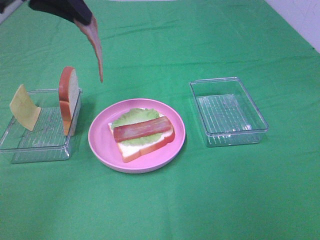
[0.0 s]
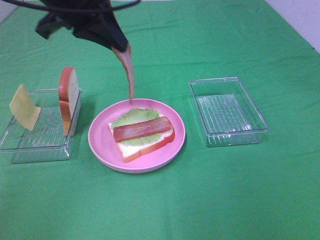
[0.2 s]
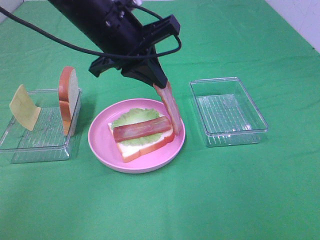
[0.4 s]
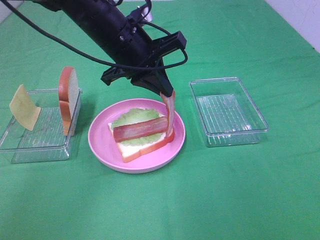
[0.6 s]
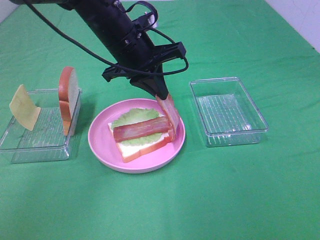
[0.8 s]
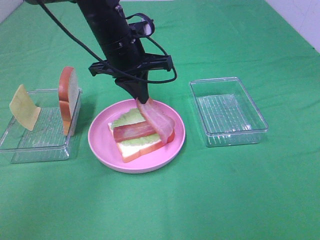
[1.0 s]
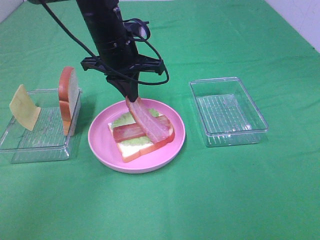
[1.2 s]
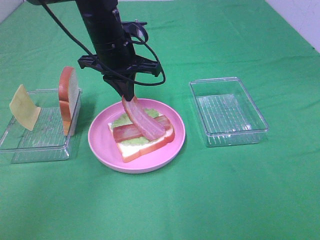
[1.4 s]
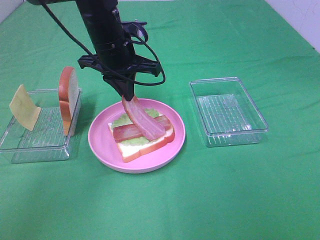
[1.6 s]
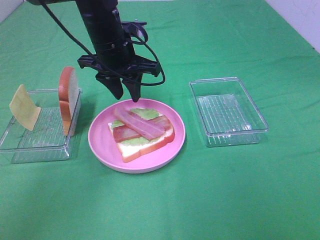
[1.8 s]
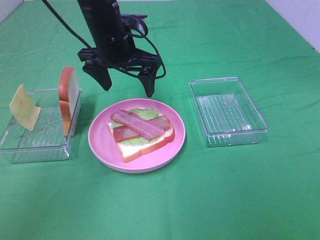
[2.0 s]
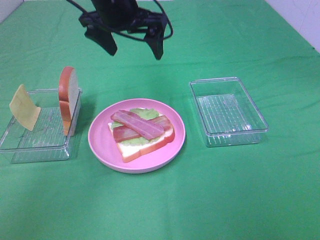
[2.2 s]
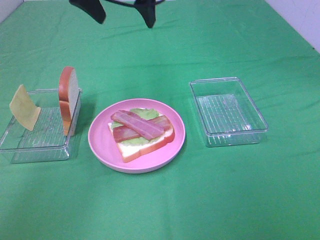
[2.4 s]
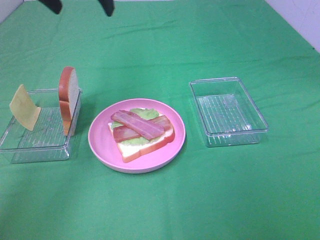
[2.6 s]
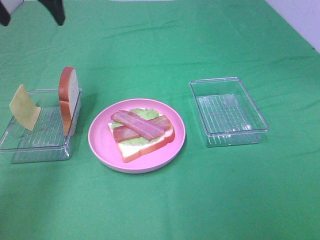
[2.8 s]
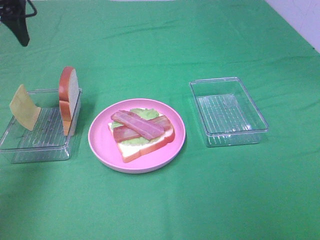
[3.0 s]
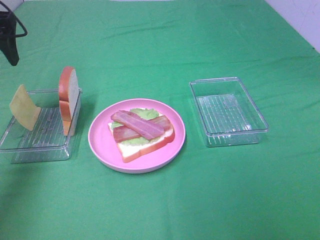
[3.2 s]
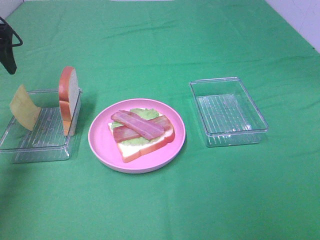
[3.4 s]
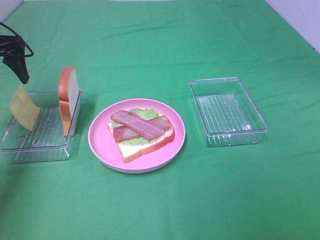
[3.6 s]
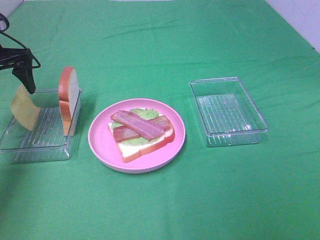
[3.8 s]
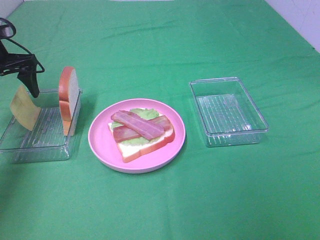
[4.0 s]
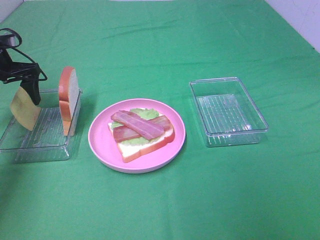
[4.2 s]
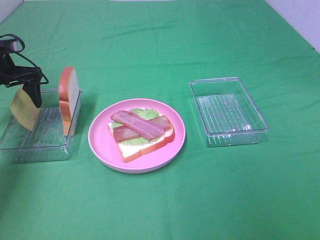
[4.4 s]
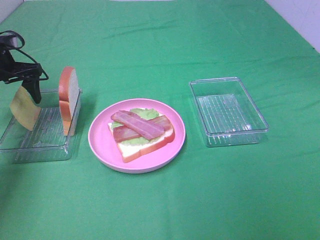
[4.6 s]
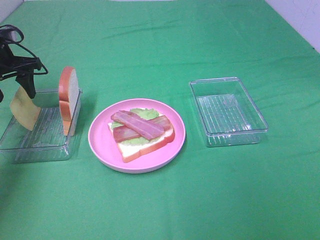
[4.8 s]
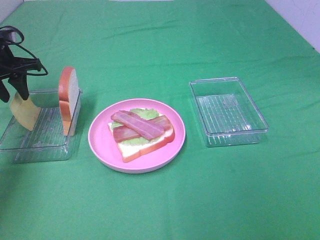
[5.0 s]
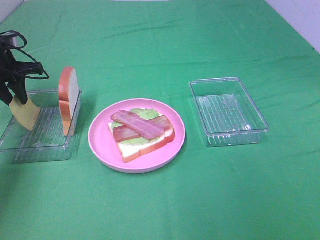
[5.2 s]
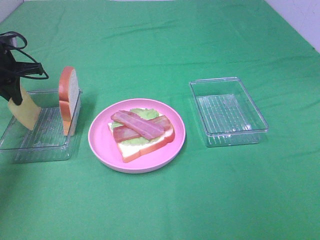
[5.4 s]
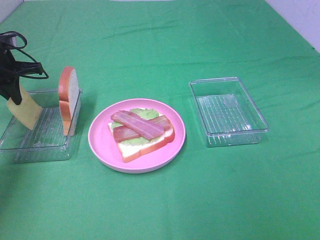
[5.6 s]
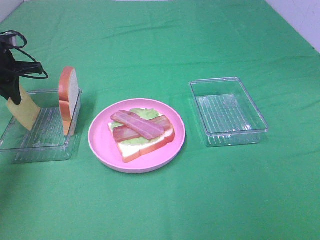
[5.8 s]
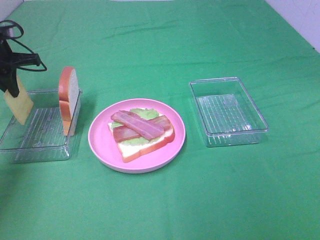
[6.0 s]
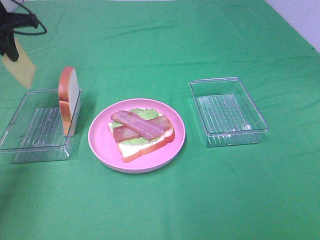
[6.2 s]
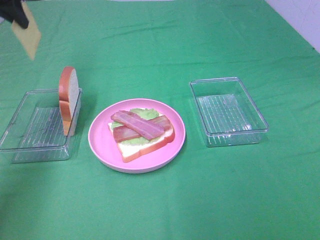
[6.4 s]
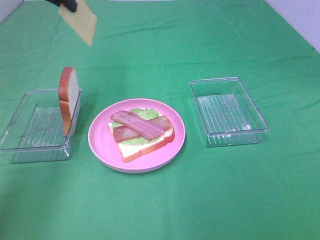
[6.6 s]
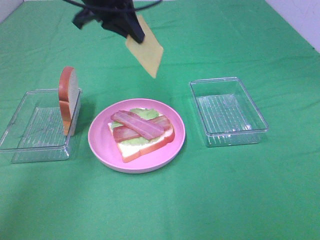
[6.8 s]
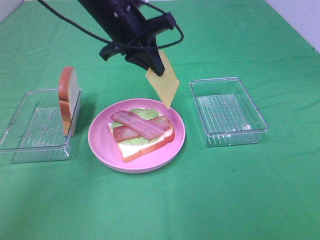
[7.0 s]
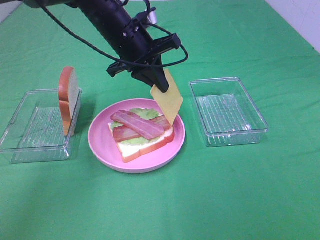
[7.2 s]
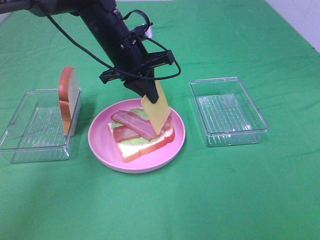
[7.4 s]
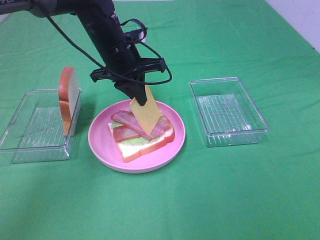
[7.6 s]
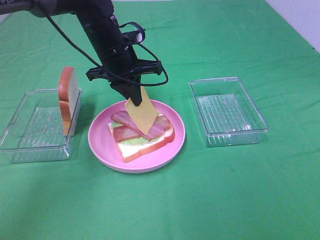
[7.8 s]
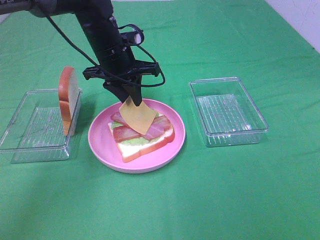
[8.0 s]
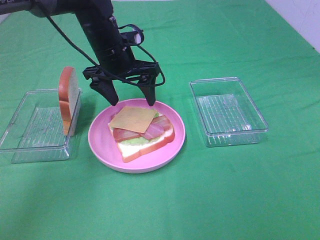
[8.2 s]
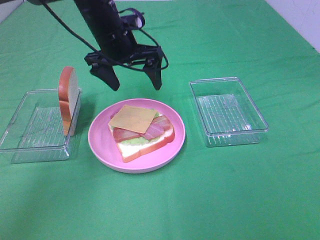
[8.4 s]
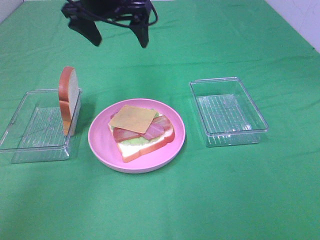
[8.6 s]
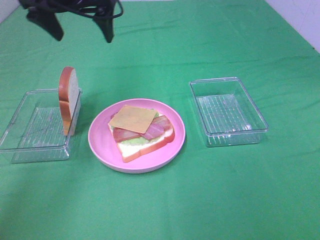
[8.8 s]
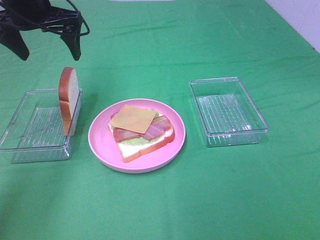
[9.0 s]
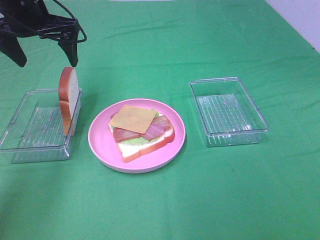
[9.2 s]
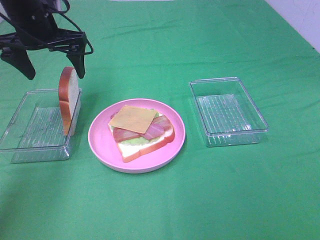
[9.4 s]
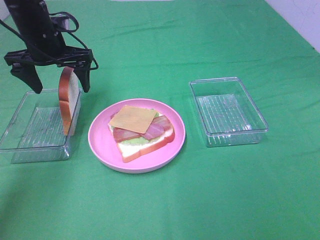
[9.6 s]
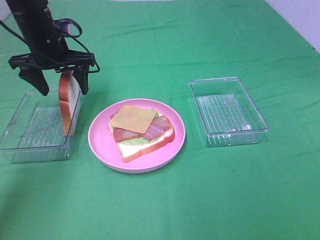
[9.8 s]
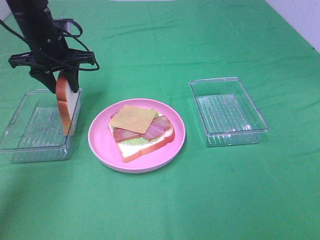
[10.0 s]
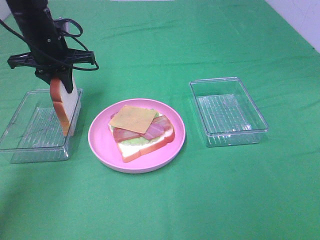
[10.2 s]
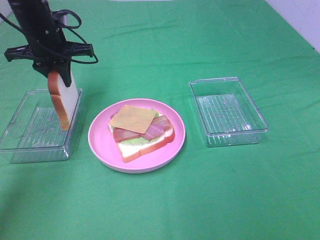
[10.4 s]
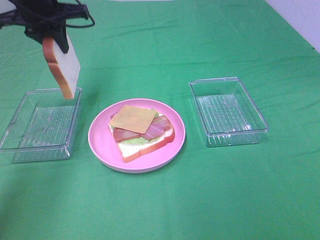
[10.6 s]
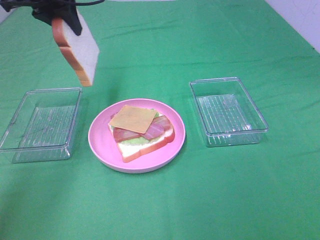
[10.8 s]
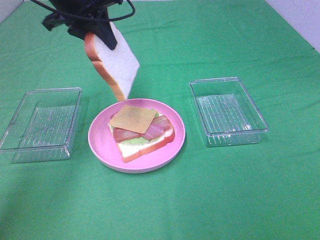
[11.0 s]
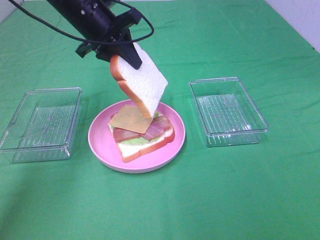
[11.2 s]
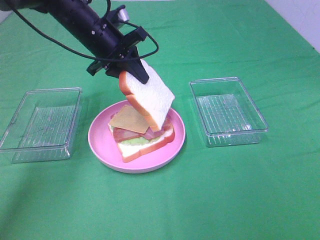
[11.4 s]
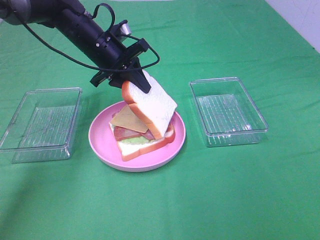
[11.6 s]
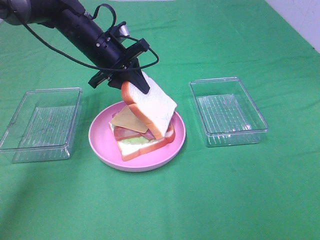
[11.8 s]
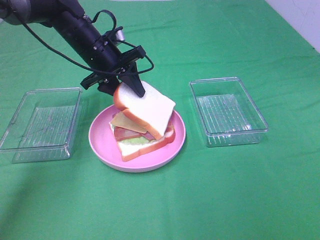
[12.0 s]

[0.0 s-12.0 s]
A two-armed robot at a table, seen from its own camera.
Task of the whole recording: Make sandwiches.
Step, 0.0 to 2.0 s: Left hand:place bacon on bacon.
Step, 2.2 to 5.4 s: Left hand:grab the cheese slice.
Step, 5.6 to 8.2 s: Left hand:place the cheese slice on top of the bacon.
Step, 8.4 to 10.2 s: Left hand:grab the bread slice.
0.0 to 1.6 s: The left gripper is displaced downward, forward and to the right by about 20 cm.
1.6 to 3.0 s: The left gripper shifts approximately 25 cm to the left and upward, and opens.
3.0 to 4.4 s: The left gripper heads downward, covering some 15 cm.
4.4 to 6.0 s: The left gripper closes.
6.0 to 7.6 s: The left gripper shifts some 25 cm to the right.
7.6 to 9.0 s: The left gripper goes roughly 15 cm to the left and upward, and opens its fingers.
9.0 to 10.4 s: The left gripper heads downward, covering about 5 cm, and closes.
10.4 to 12.0 s: The left gripper shifts about 10 cm to the right, and reaches roughly 10 cm upward, then returns.

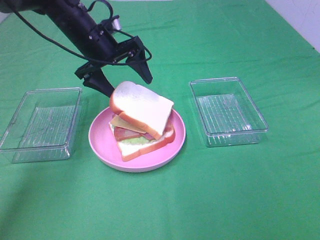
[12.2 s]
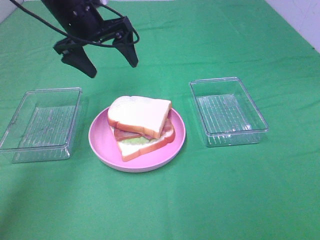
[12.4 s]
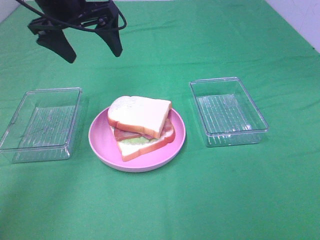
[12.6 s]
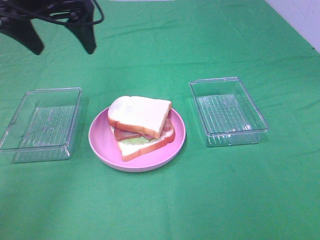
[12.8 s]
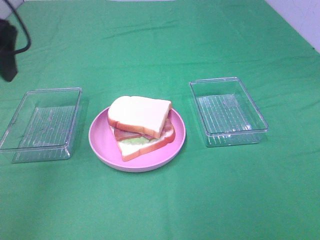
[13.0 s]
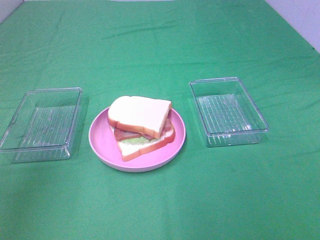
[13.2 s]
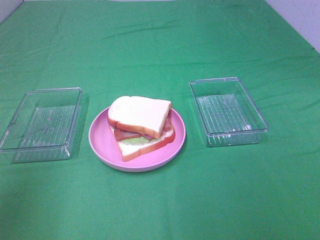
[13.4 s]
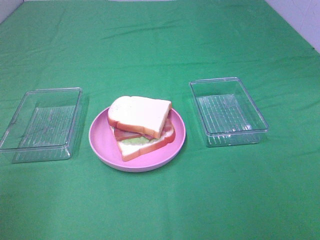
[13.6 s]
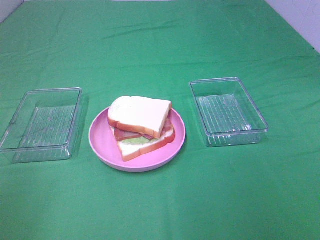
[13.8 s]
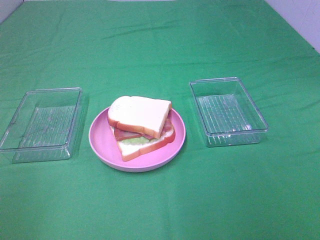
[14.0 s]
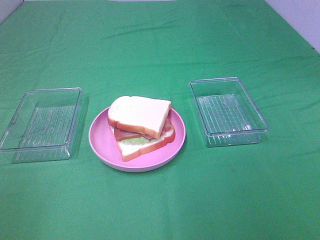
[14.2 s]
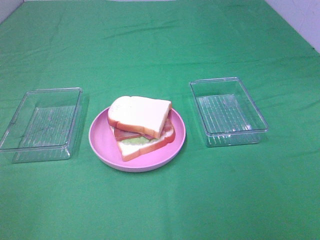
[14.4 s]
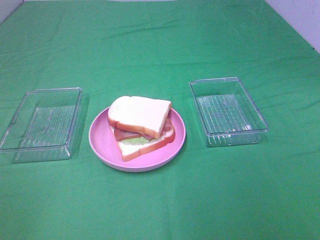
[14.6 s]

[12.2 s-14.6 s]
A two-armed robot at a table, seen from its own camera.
Task of the whole recording: Make sandwiches.
12.2 to 13.4 s: The left gripper goes some 35 cm backward and to the left.
13.4 to 14.6 s: The left gripper is displaced backward by roughly 15 cm.
